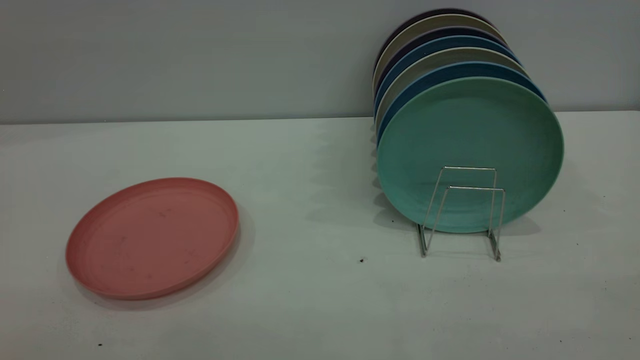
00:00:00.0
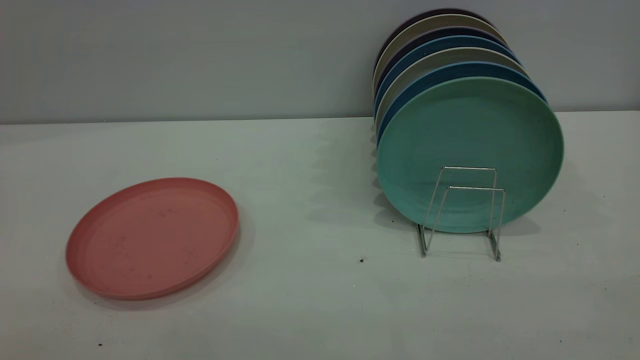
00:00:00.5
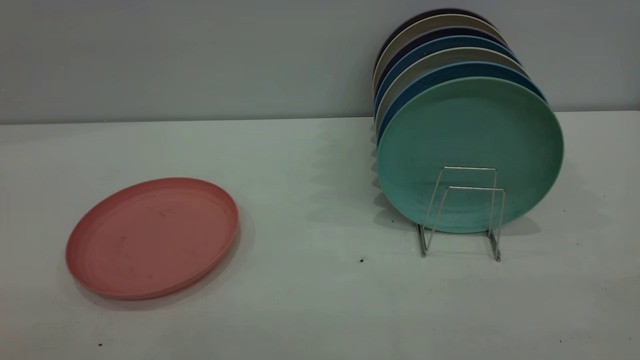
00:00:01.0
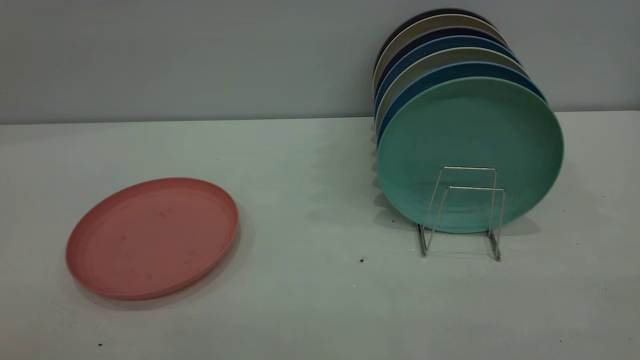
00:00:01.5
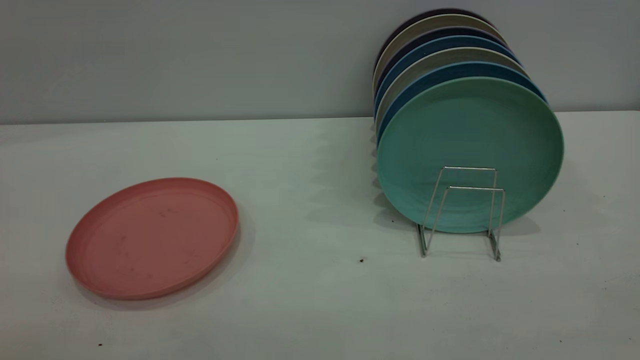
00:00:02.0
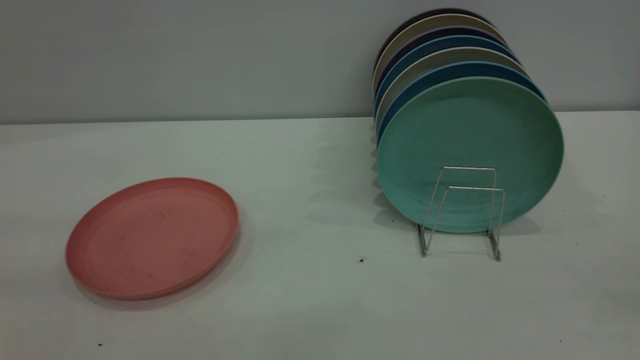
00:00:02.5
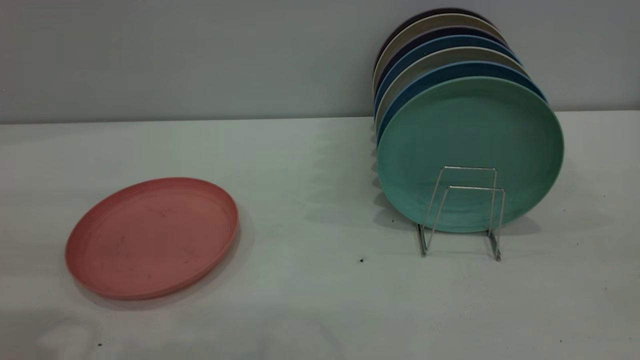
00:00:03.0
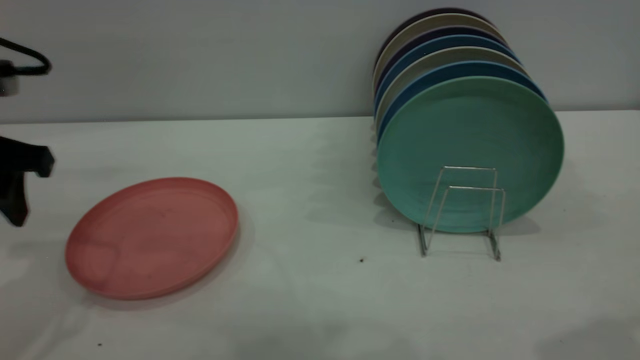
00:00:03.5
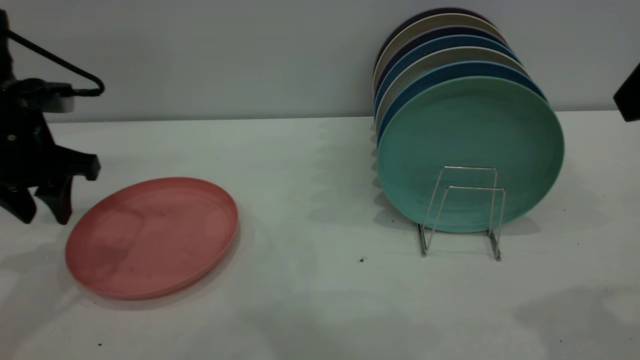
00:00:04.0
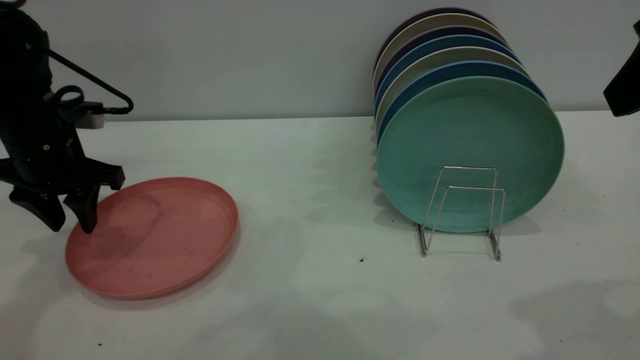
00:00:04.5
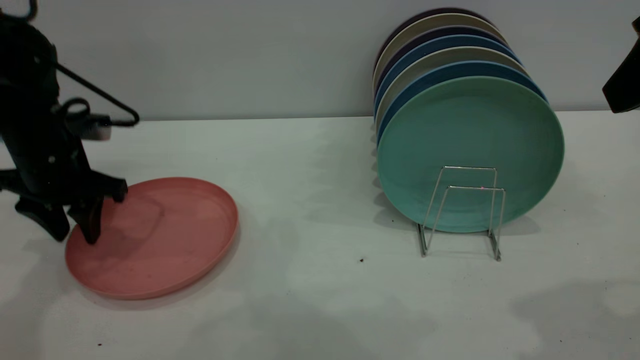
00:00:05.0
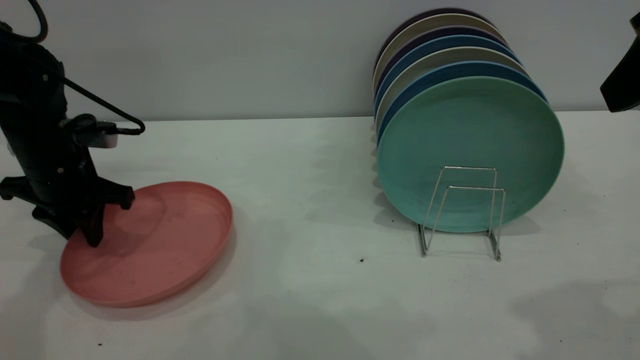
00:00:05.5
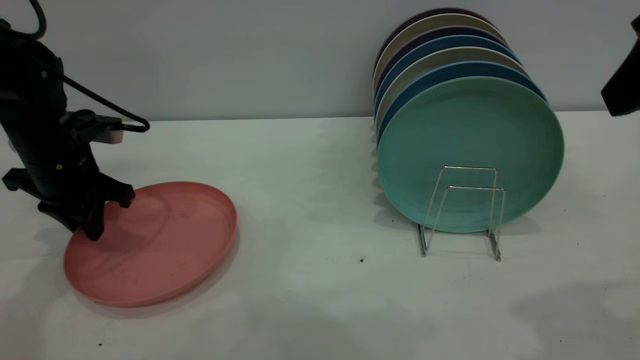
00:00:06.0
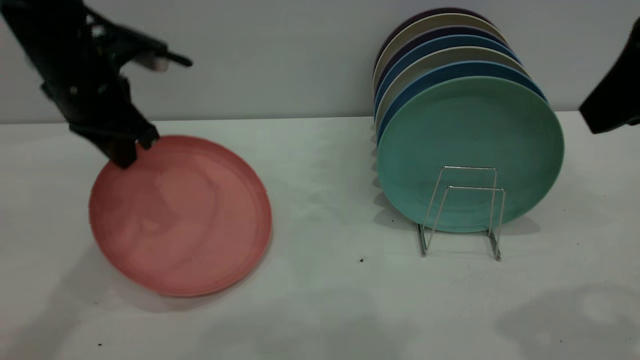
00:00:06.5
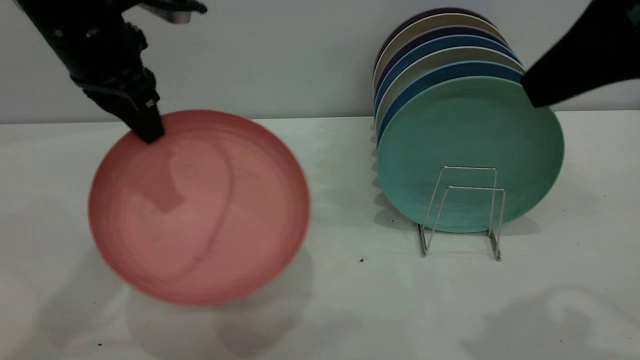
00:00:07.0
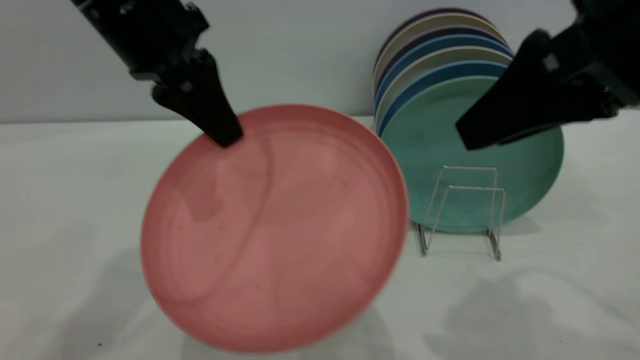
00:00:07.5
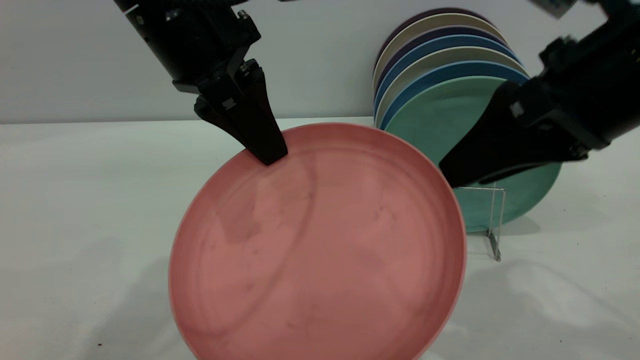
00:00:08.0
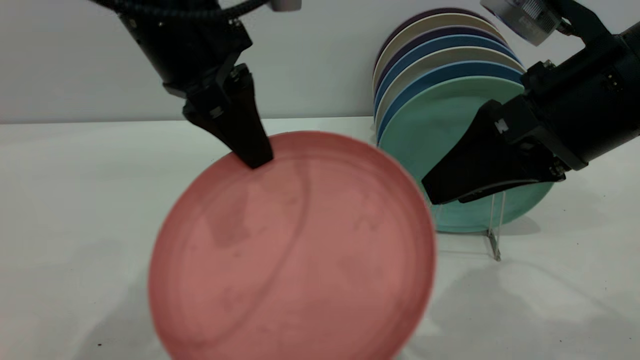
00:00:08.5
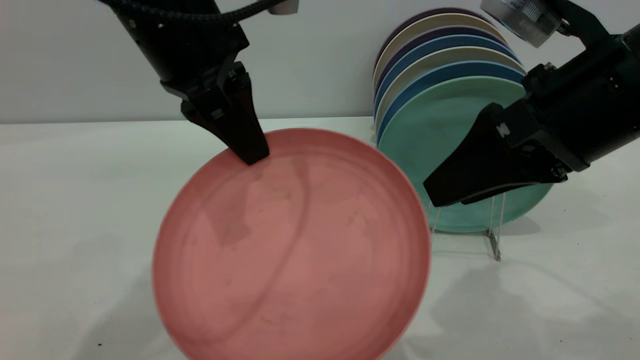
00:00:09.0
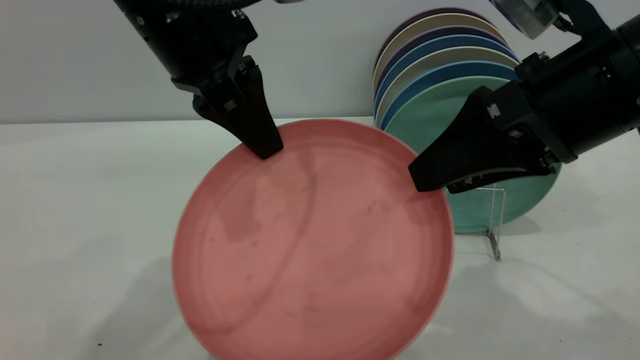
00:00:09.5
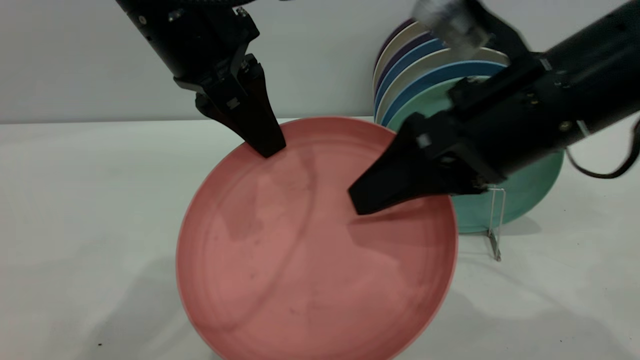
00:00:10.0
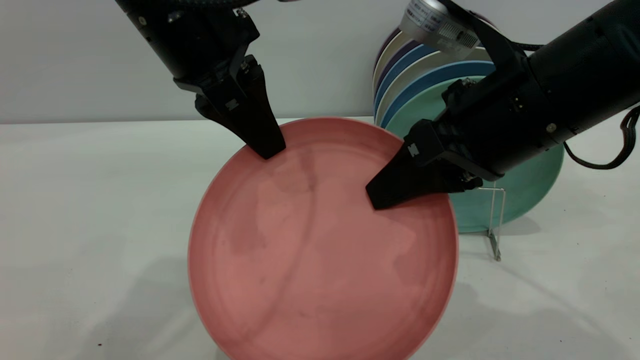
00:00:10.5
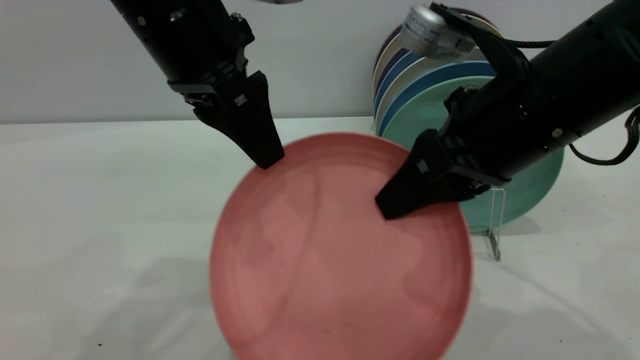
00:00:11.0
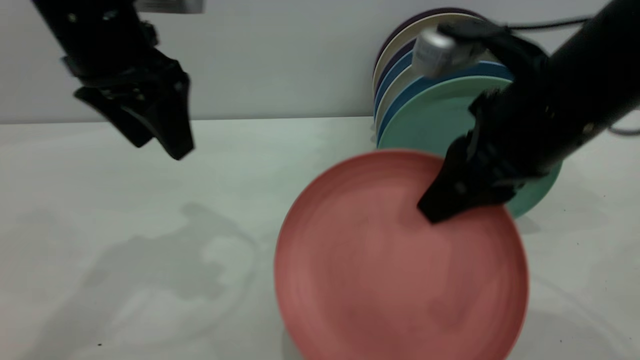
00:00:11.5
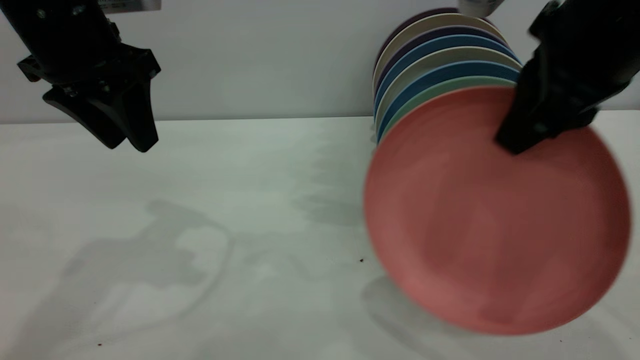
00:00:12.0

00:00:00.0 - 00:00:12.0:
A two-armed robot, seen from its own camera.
Task of the whole recording: put the plate on the plate rack.
Step, 00:00:00.0 - 00:00:06.5: Pick up the plate with the left gripper.
Step, 00:00:07.0 - 00:00:11.0: Pass the plate from the left gripper to the right gripper.
00:00:02.0 - 00:00:04.0: The left gripper is displaced forward and downward by roughly 40 cm.
00:00:04.0 - 00:00:06.0: The left gripper moves downward, about 5 cm, and closes its fingers.
00:00:06.0 - 00:00:08.0: The left gripper heads to the right, upward and backward, covering some 25 cm. Meanwhile the right gripper shifts roughly 10 cm downward and to the left.
00:00:08.0 - 00:00:10.0: The right gripper shifts roughly 5 cm to the left.
00:00:10.0 - 00:00:12.0: The left gripper moves to the left, some 10 cm, and opens its fingers. Meanwhile the right gripper shifts about 5 cm upward, and closes its fingers.

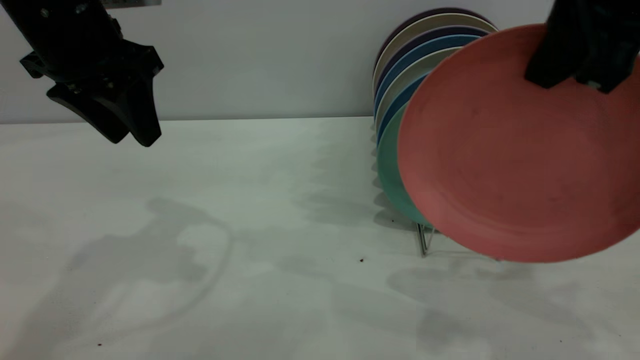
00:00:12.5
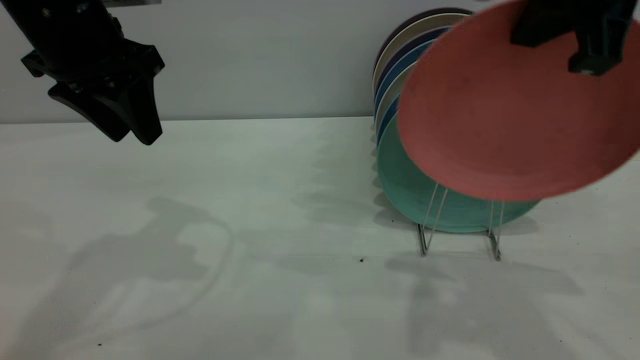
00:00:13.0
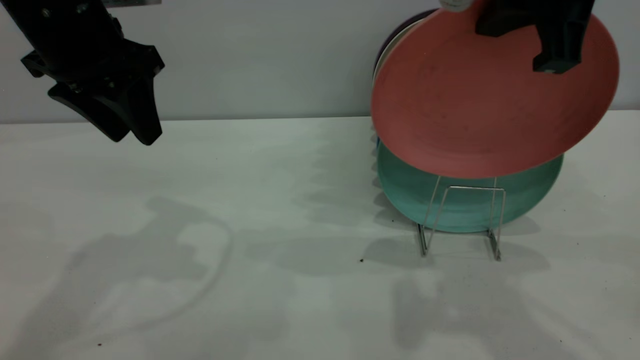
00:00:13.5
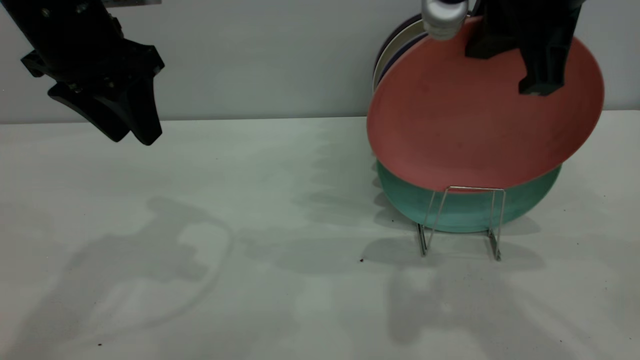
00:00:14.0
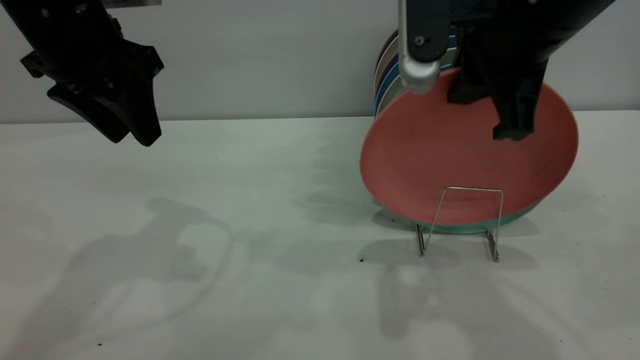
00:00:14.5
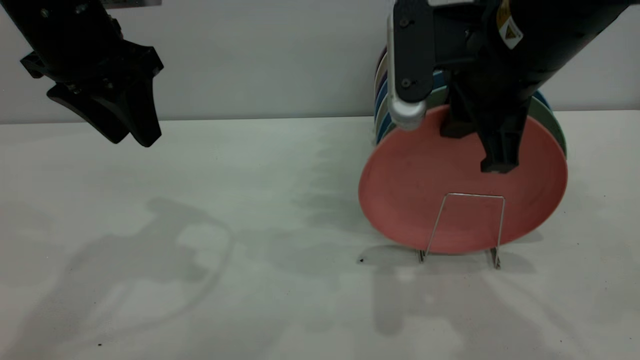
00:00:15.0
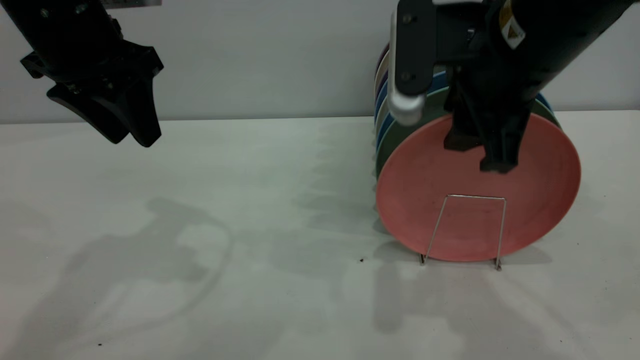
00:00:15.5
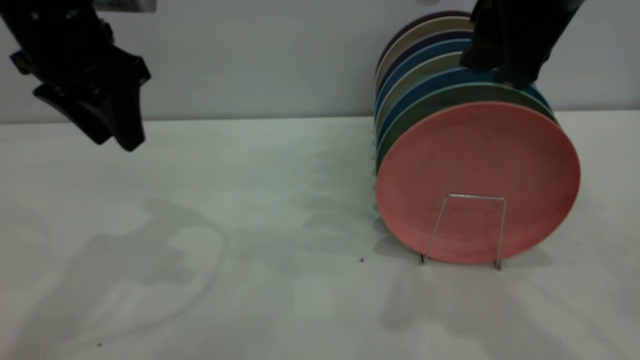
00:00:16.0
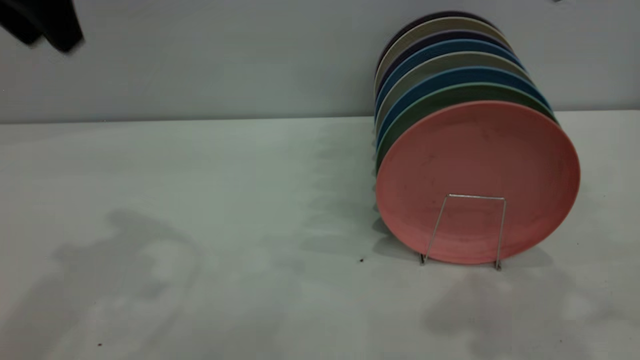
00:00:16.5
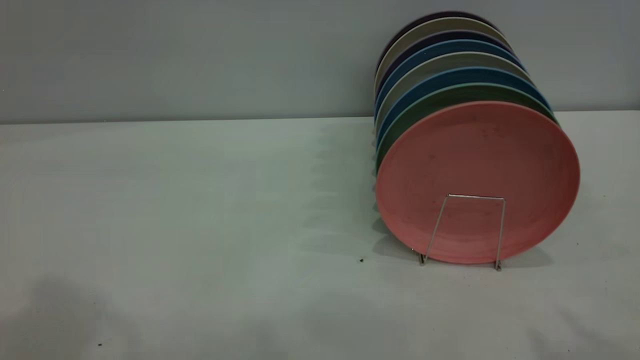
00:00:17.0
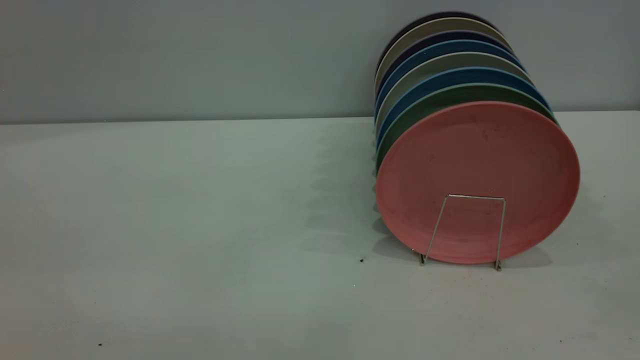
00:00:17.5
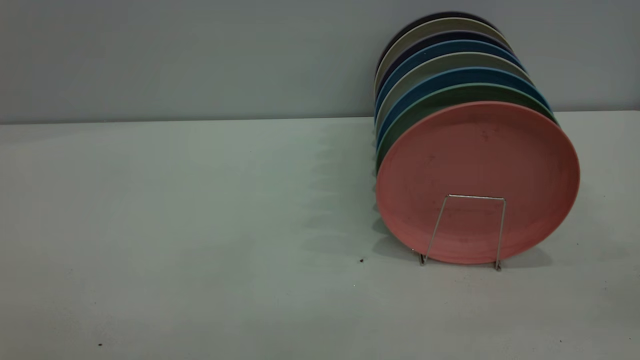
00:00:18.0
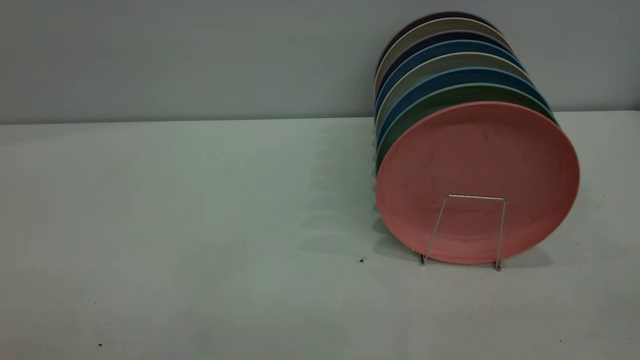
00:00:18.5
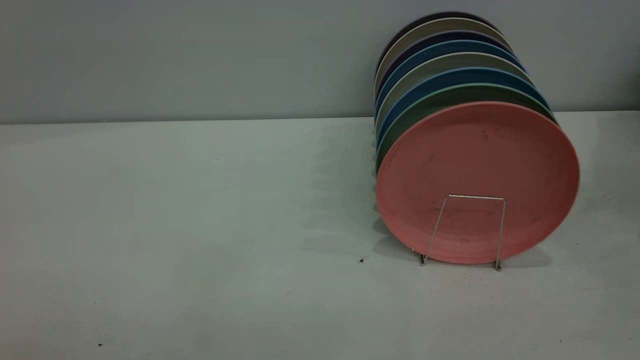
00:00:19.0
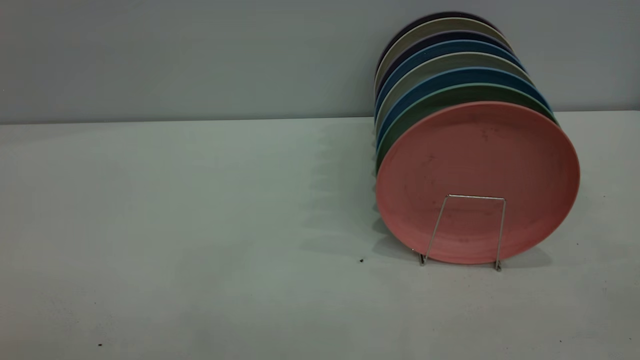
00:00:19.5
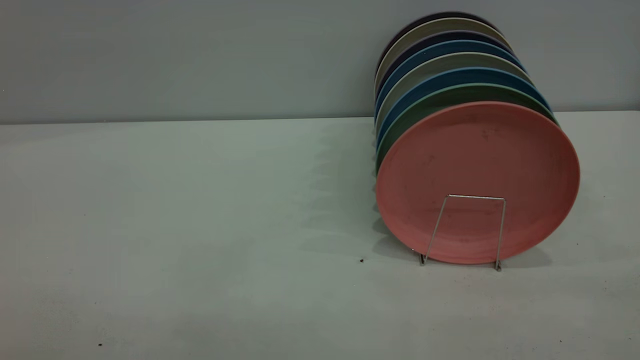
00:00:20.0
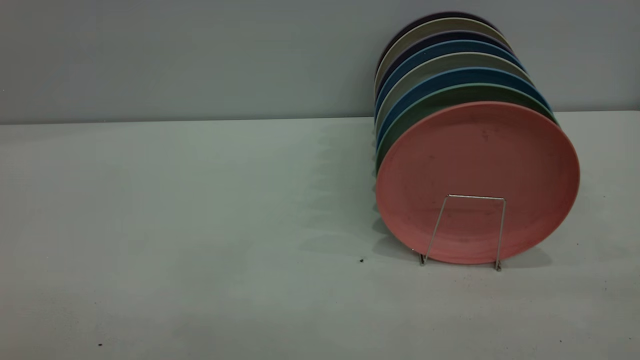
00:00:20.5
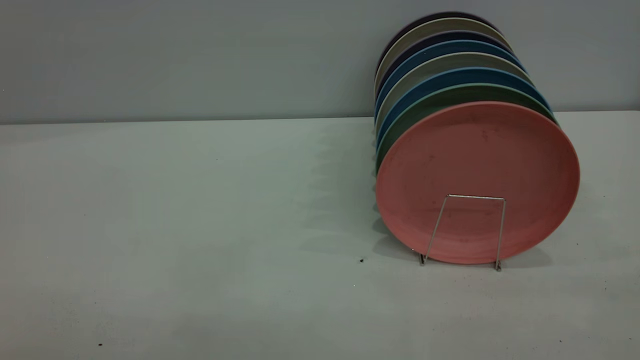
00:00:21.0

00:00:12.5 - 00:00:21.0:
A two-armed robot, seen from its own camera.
Task of the whole recording: put the plate on the plate rack.
Step, 00:00:12.5 - 00:00:16.0: Place the plate on the shelf.
00:00:12.5 - 00:00:14.5: The right gripper is displaced downward by roughly 5 cm.
00:00:14.5 - 00:00:16.5: The left gripper heads upward, covering about 10 cm. The right gripper travels upward and backward by some 15 cm, and opens.
00:00:16.5 - 00:00:19.0: The right gripper travels backward and to the right by some 30 cm, while the left gripper travels backward by approximately 35 cm.
